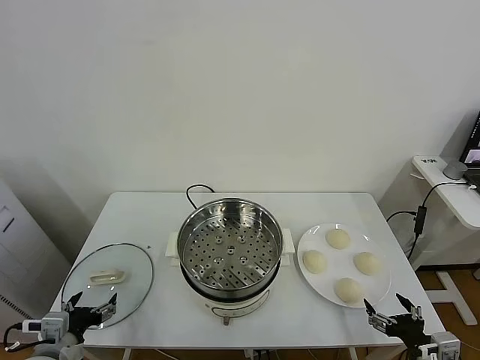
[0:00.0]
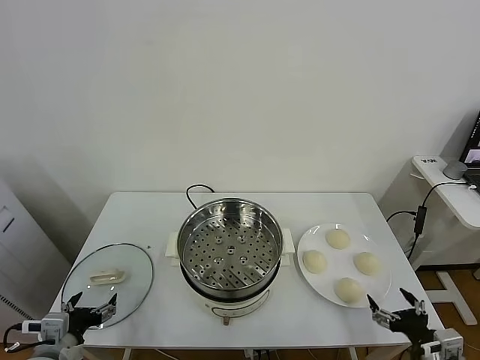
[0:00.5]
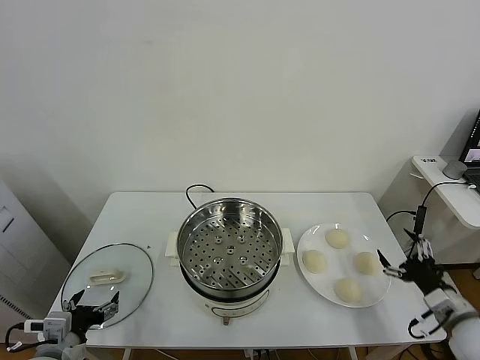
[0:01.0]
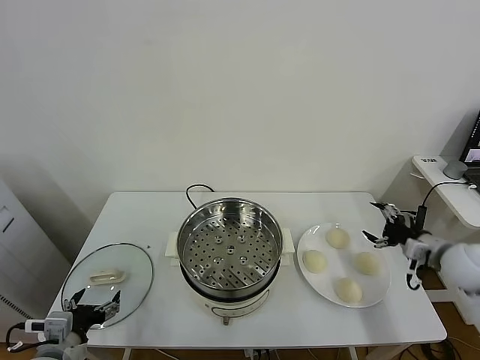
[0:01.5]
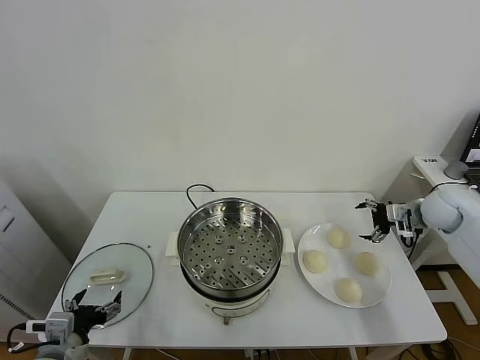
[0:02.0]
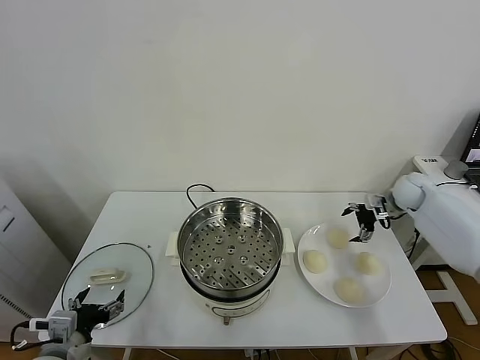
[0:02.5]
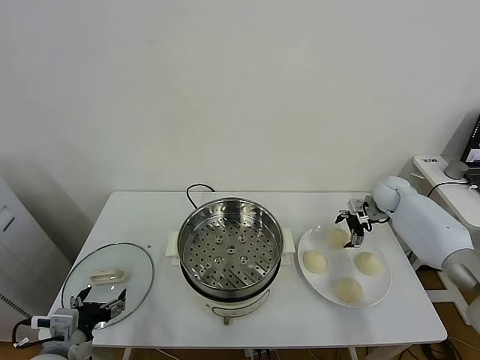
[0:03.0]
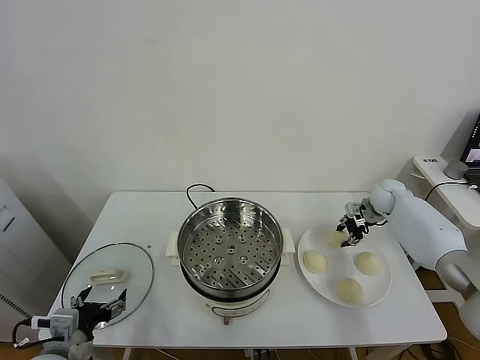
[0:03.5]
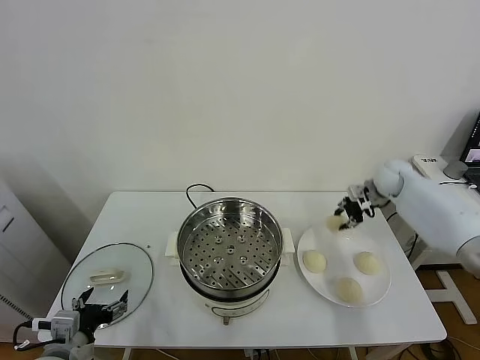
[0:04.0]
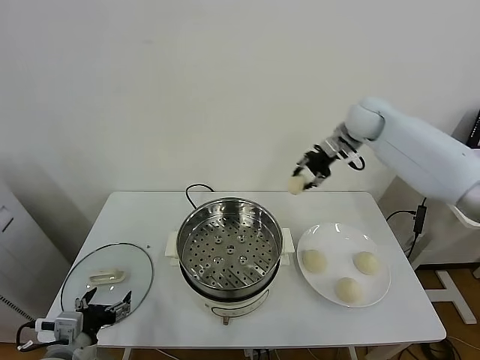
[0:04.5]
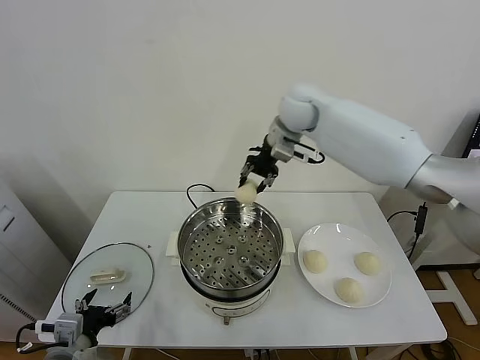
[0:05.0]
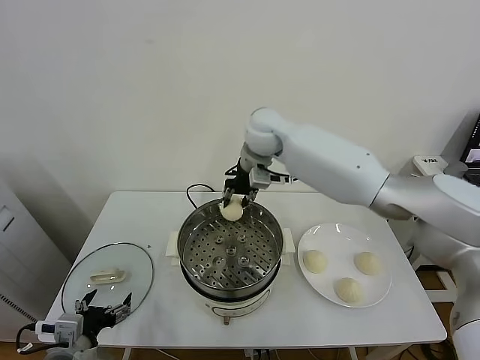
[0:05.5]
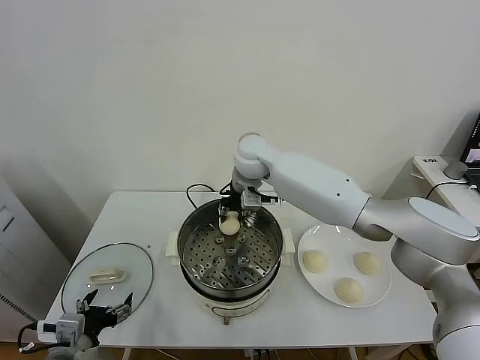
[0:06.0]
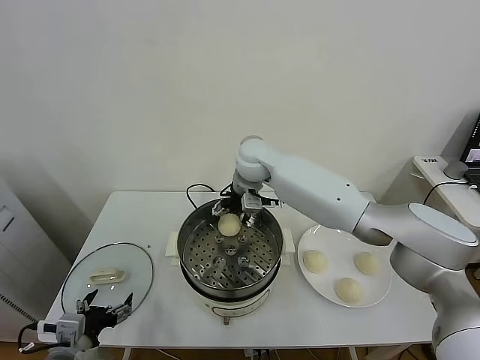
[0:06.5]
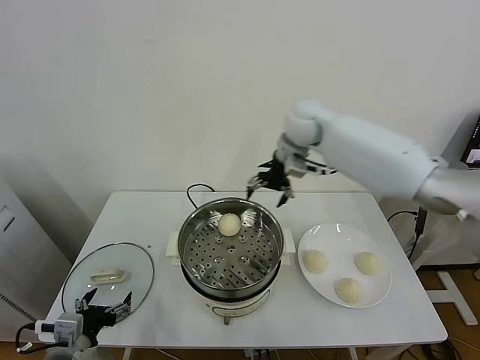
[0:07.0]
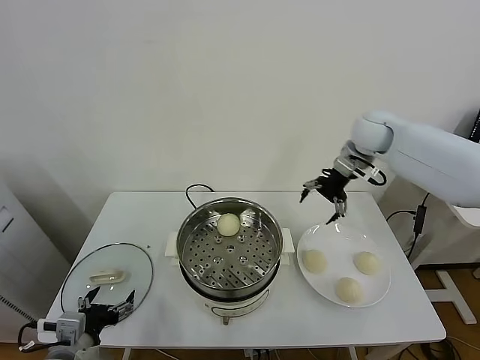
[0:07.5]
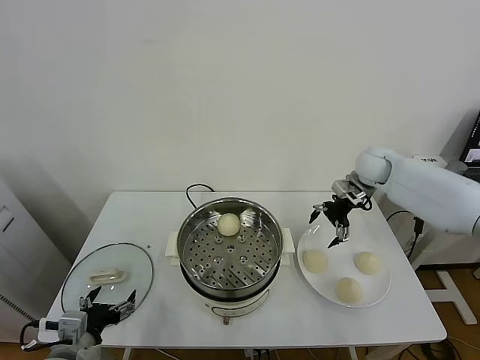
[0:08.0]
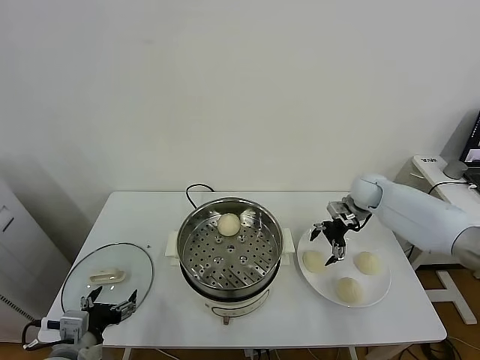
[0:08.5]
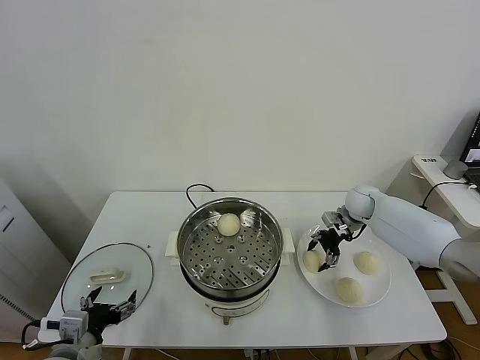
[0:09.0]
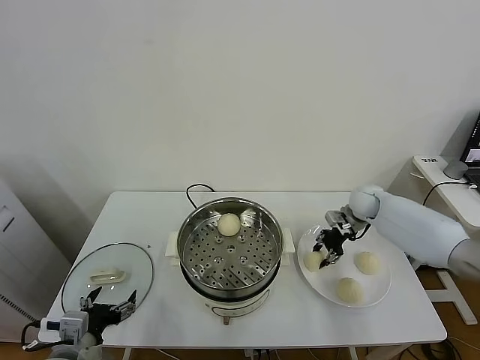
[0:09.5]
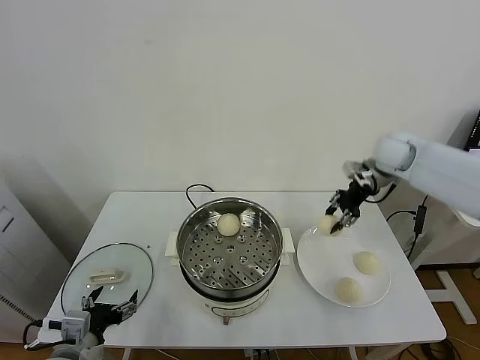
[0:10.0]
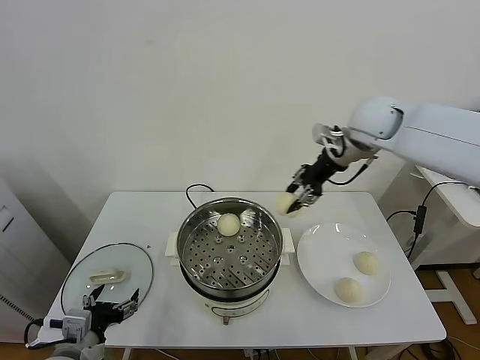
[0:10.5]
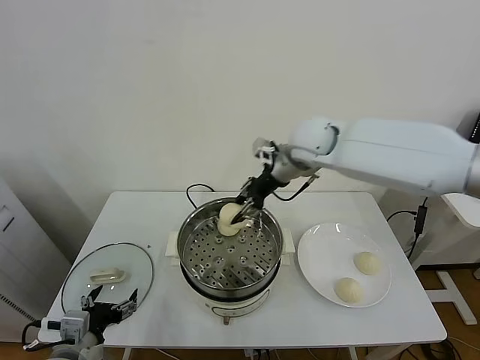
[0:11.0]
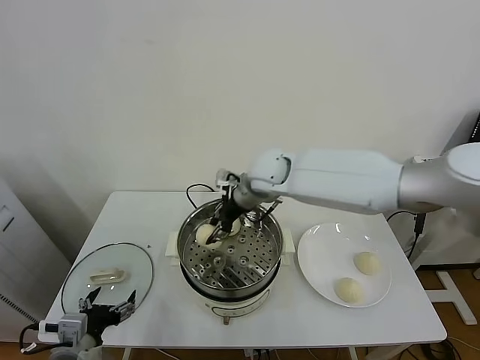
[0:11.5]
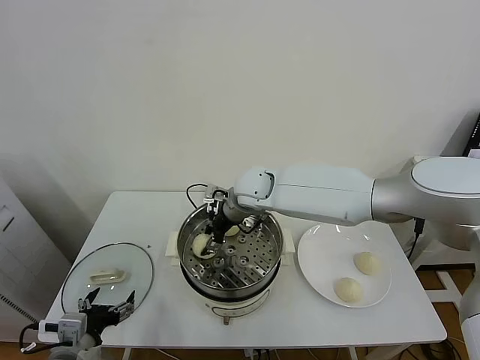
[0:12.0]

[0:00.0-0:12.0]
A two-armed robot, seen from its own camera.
Task of the whole recording: take steamed baozi put them in steamer.
Step, 0:00.0 to 0:03.0: Grasp the baozi in the plate with right gripper.
Step, 0:03.5 to 0:06.5: Place the baozi on the steamer with right gripper.
Step, 0:07.0 to 0:09.0: Grasp the baozi in the plate with right gripper.
0:02.0 to 0:04.0: The right gripper is displaced forward and to the left by approximately 15 cm, and closes up.
0:04.0 to 0:06.0: The right gripper shifts roughly 35 cm to the left.
0:06.0 to 0:08.0: The right gripper moves to the right, roughly 30 cm, and opens up.
0:08.0 to 0:10.0: The right gripper shifts roughly 10 cm upward, and closes up.
0:10.0 to 0:12.0: The right gripper travels to the left by roughly 30 cm.

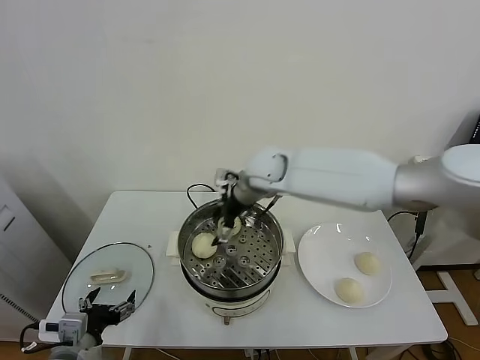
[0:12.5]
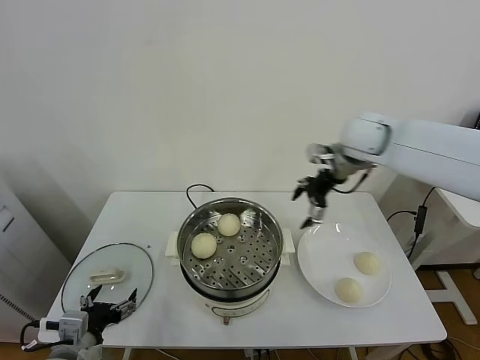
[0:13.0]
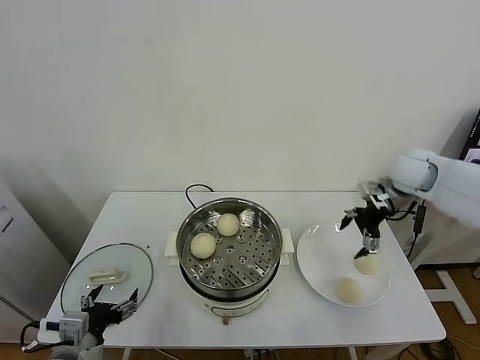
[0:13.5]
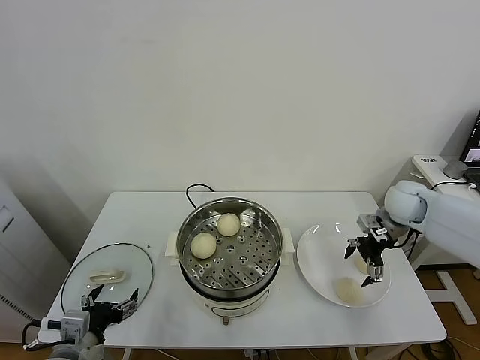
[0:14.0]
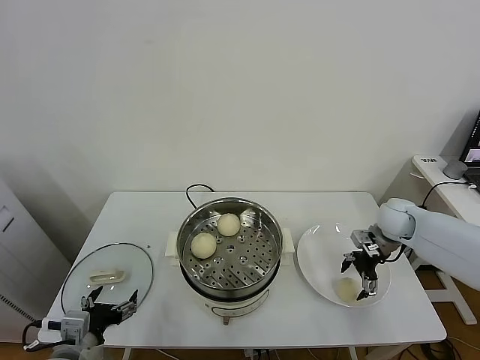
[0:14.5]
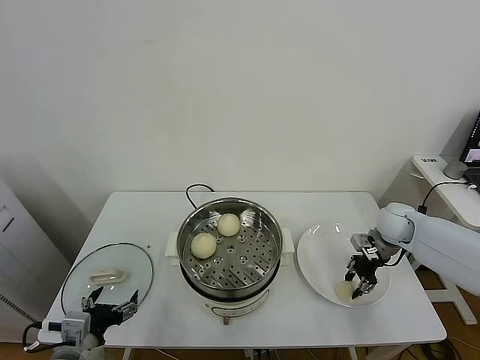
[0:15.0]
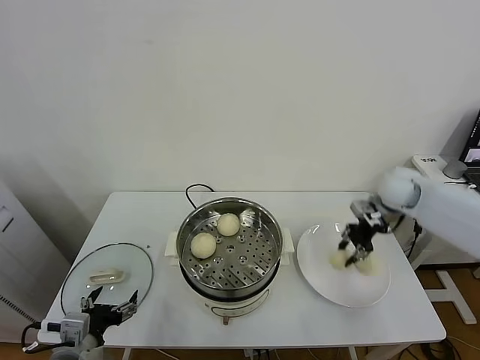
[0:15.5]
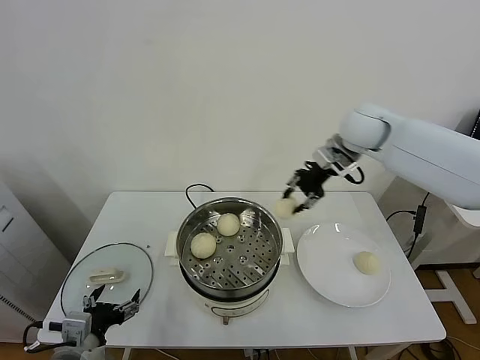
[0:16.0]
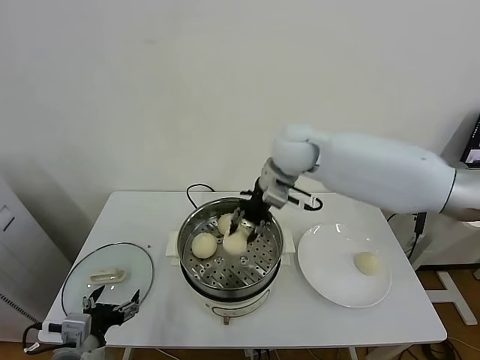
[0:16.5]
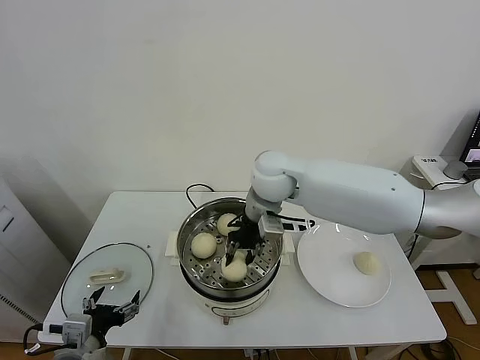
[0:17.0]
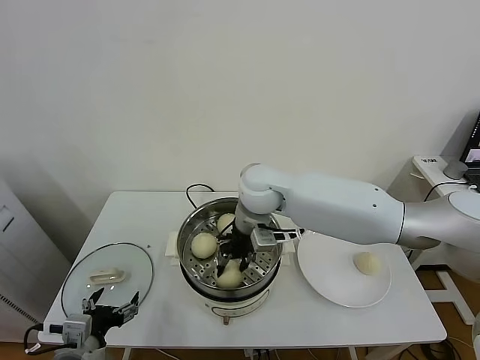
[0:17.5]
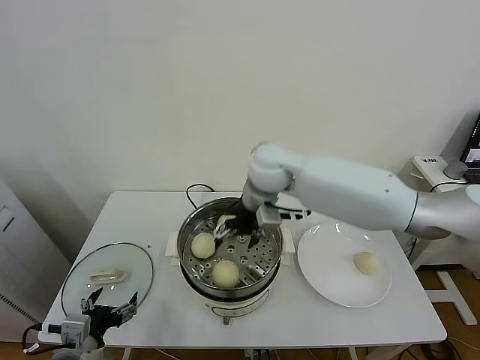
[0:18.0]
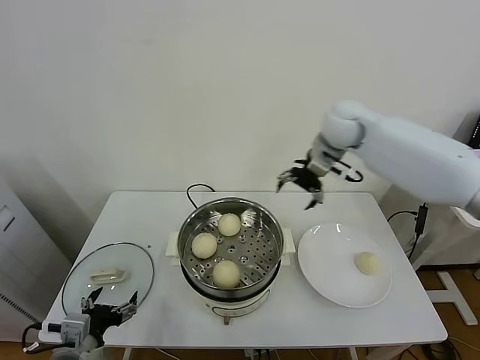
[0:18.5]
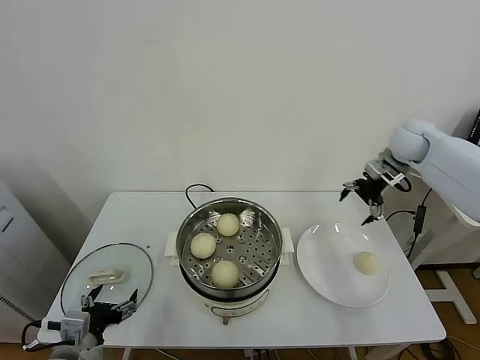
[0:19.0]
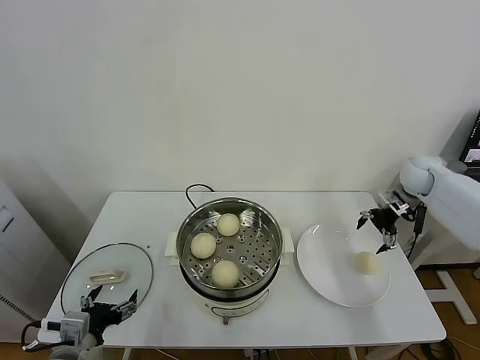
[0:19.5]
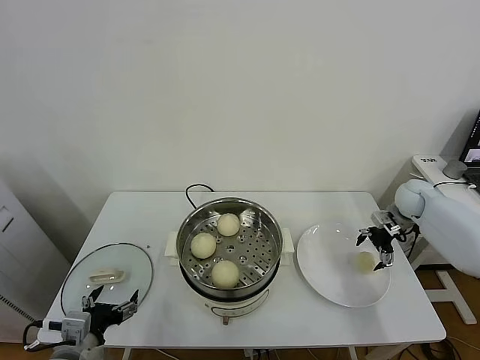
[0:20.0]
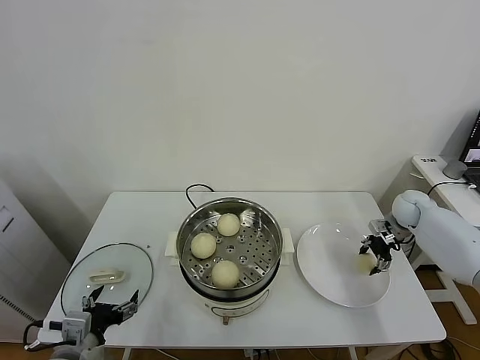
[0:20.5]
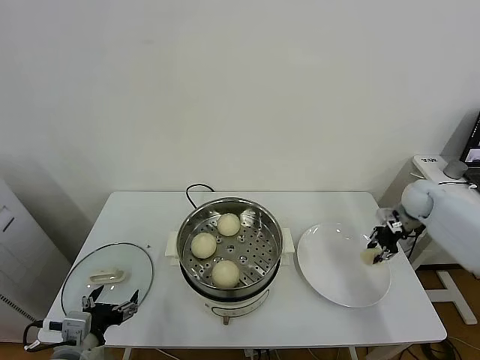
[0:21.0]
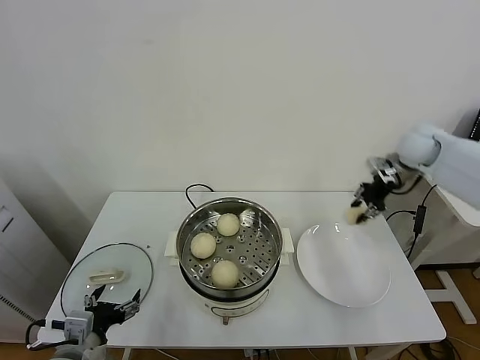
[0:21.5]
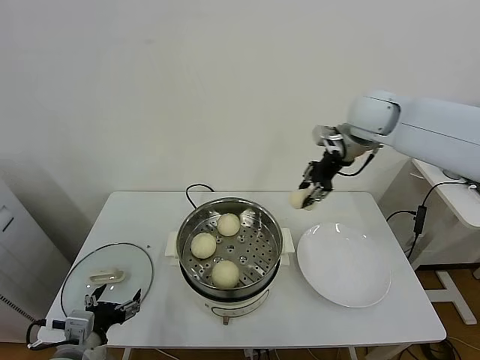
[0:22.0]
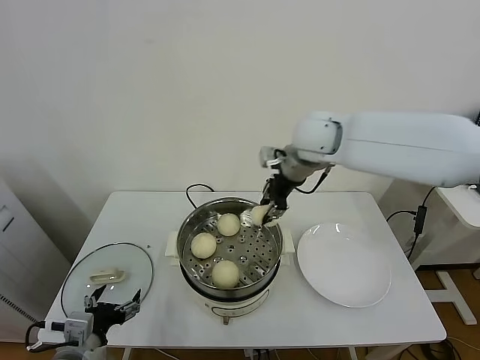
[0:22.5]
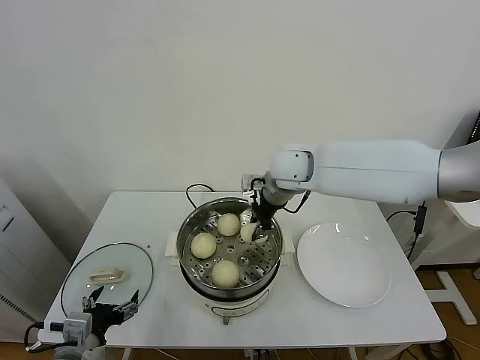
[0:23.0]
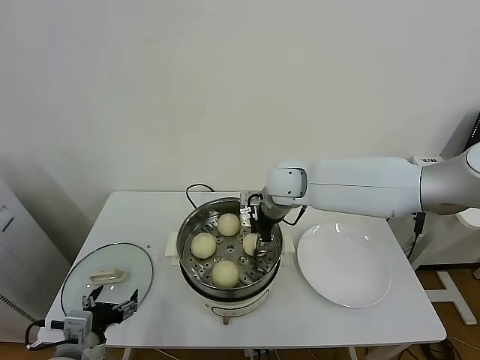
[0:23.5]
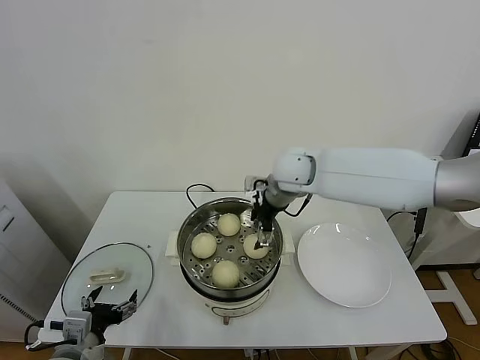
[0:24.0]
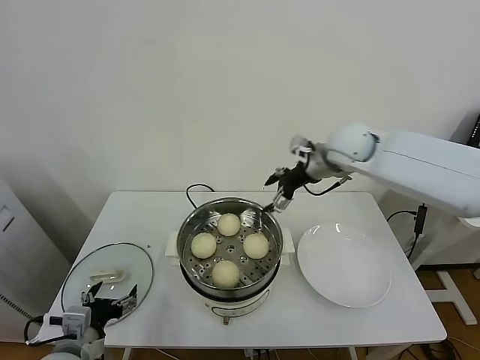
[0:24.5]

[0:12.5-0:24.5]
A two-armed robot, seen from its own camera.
Task of the whole recording: take steamed baozi put them in steamer.
Step, 0:13.0 to 0:14.5: Grasp the baozi in the plate with right gripper.
Step, 0:15.0 to 0:17.5: Place the baozi on the steamer with right gripper.
Step, 0:18.0 to 0:20.5: Grasp the baozi in the plate with right gripper.
Step, 0:21.0 to 0:24.0: Place the baozi on the steamer with right gripper.
0:12.5 to 0:14.5: The right gripper heads to the right and downward, covering about 35 cm.
0:14.5 to 0:16.5: The right gripper goes some 35 cm to the left and upward, and closes.
0:16.5 to 0:18.5: The right gripper shifts some 15 cm to the right and forward, and opens its fingers.
0:18.5 to 0:20.5: The right gripper is displaced downward and to the right by roughly 35 cm, and closes.
0:20.5 to 0:22.5: The right gripper heads to the left and upward, covering approximately 40 cm, and closes.
0:22.5 to 0:24.5: The right gripper goes some 10 cm to the right, and opens.

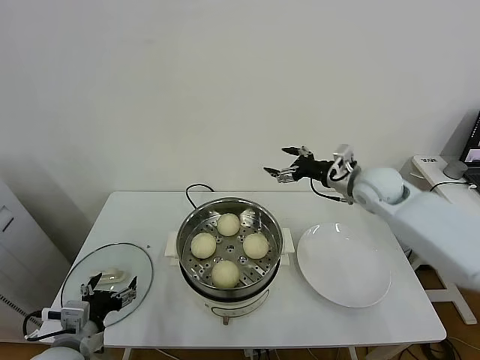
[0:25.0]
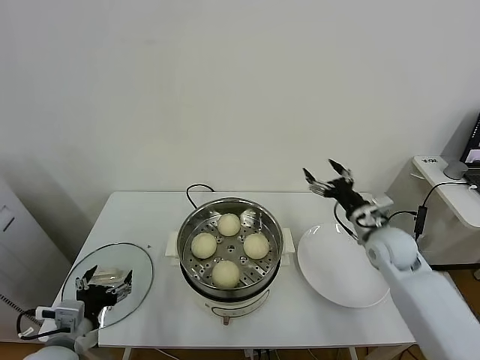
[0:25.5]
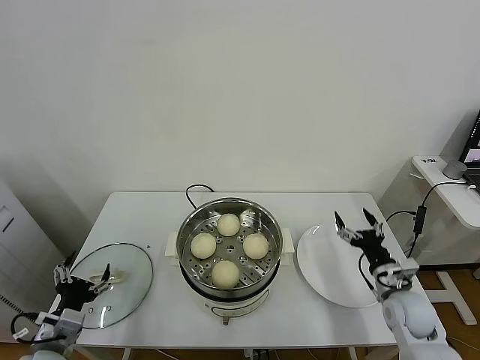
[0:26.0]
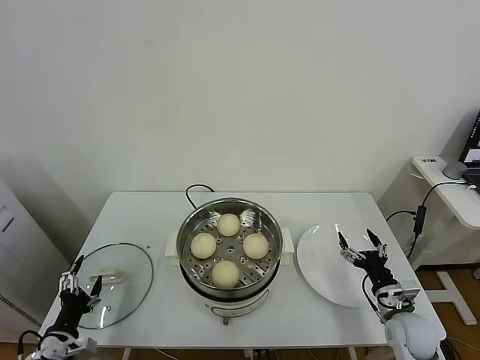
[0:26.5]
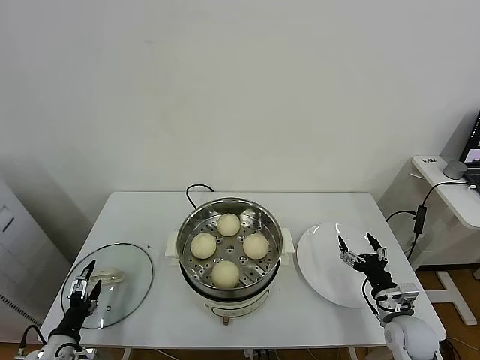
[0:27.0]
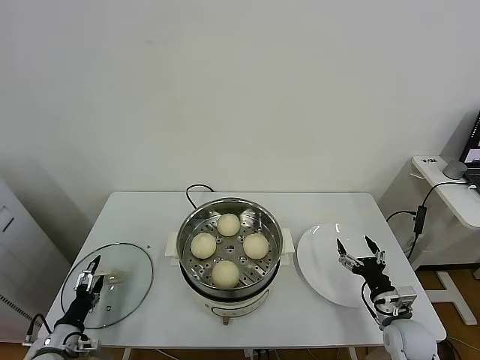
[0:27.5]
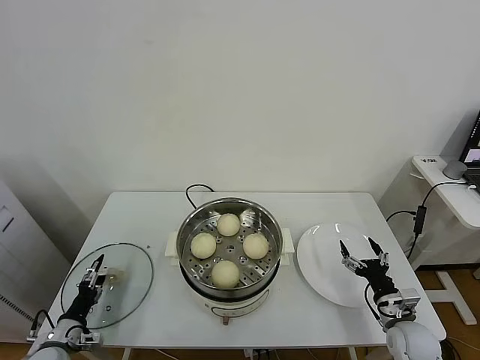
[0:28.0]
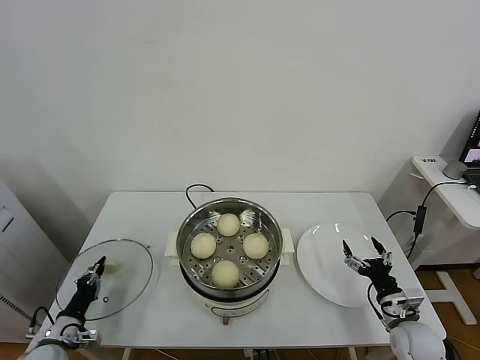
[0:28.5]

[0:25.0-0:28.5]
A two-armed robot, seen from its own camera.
Task of the whole recording: take steamed baozi put them in steamer.
0:25.0 to 0:27.0: The left gripper travels downward and to the left by some 15 cm. Meanwhile the right gripper heads downward and backward, covering about 35 cm.
0:27.0 to 0:28.5: The left gripper shifts by about 5 cm, and closes its fingers.
